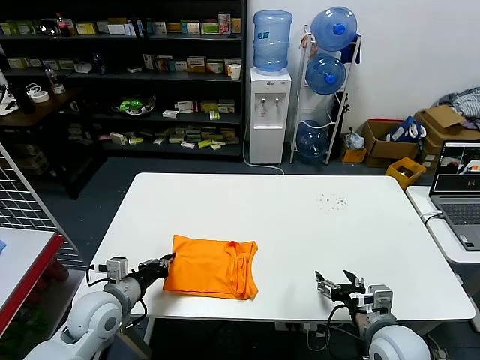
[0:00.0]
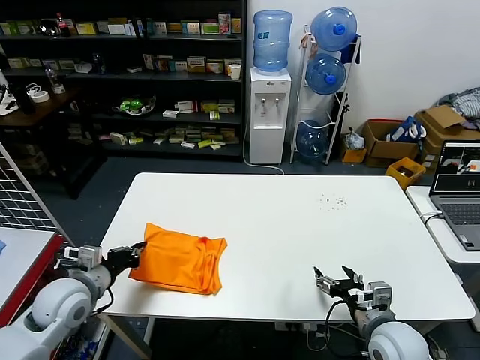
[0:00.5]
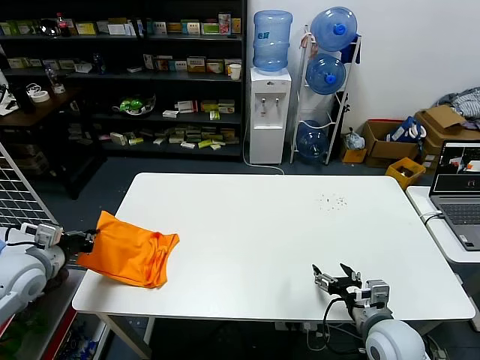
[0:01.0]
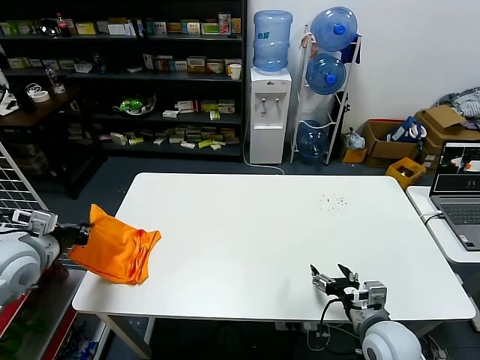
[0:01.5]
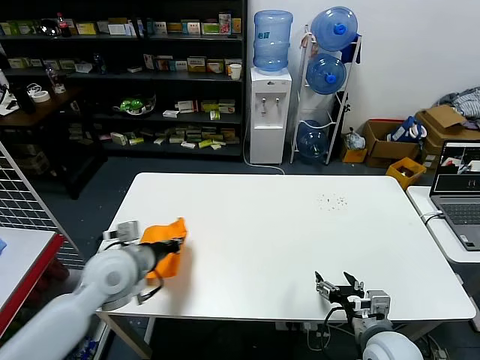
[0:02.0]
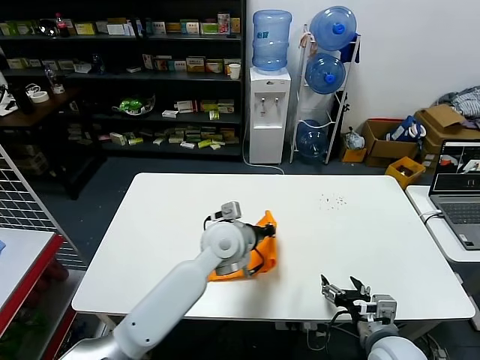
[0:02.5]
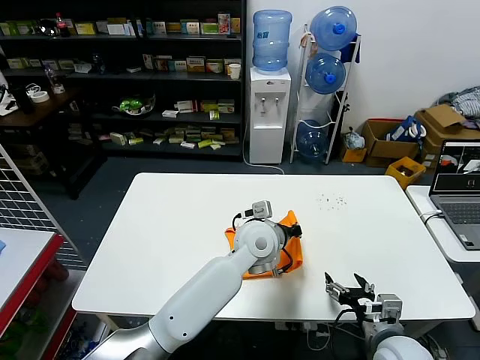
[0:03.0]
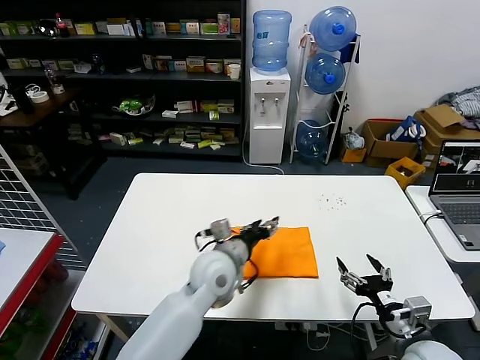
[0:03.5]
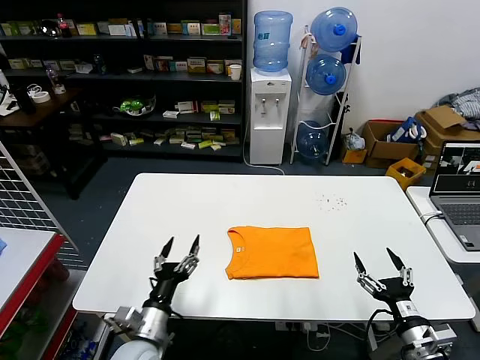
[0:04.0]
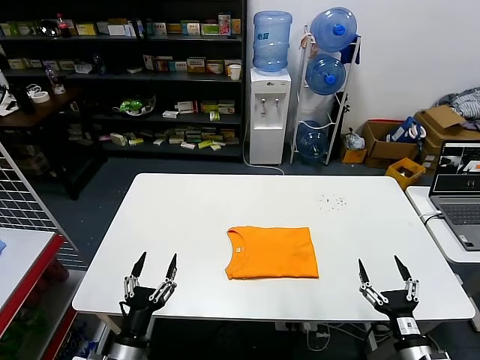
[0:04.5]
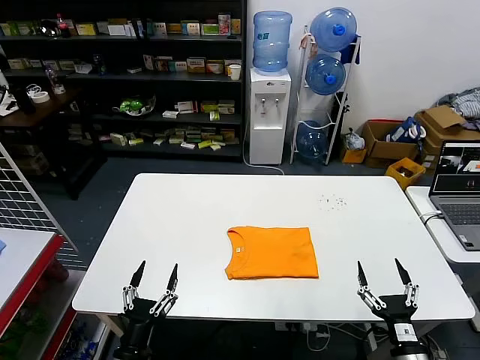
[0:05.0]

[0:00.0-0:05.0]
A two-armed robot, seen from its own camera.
Task of the whole recording: fold and organize the clothes.
Step, 0:00.0 to 0:03.0: Flip the folded clothes over with left gripper.
0:00.0 to 0:02.5: The left gripper is displaced to the right and forward by approximately 25 cm.
0:02.5 to 0:05.0: The right gripper goes approximately 10 cm backward. Meanwhile the left gripper travels backward, to the left and downward by approximately 35 cm, and opens up.
